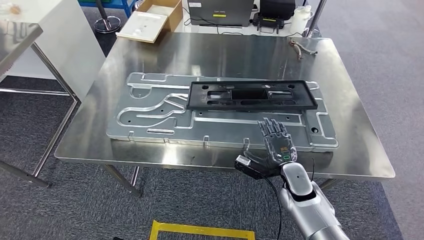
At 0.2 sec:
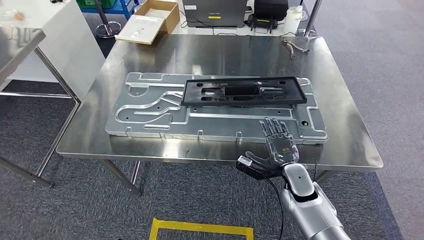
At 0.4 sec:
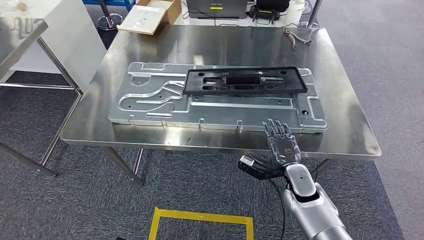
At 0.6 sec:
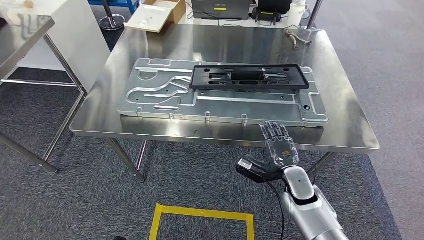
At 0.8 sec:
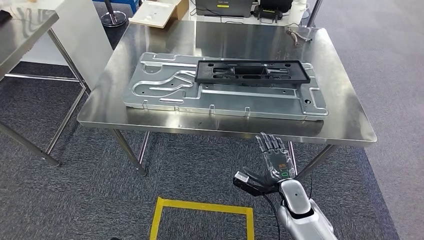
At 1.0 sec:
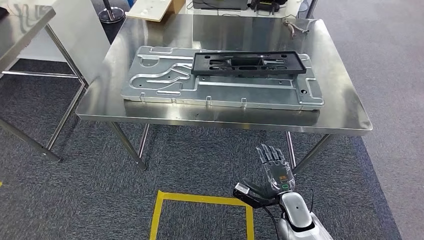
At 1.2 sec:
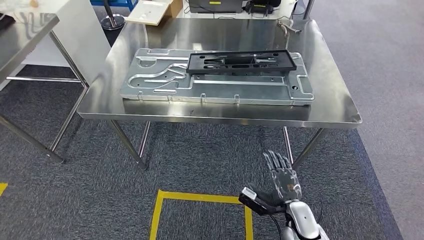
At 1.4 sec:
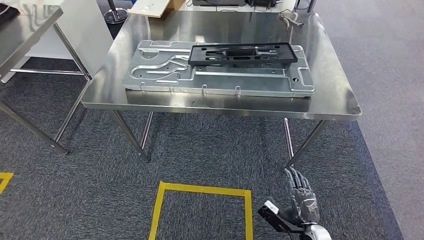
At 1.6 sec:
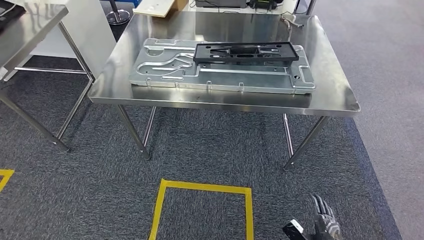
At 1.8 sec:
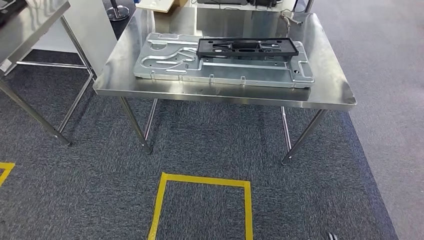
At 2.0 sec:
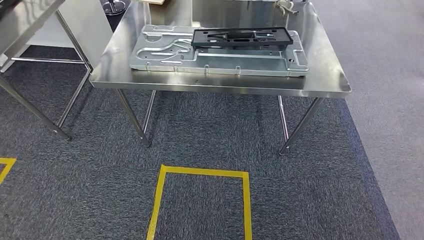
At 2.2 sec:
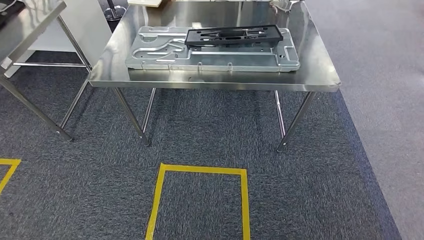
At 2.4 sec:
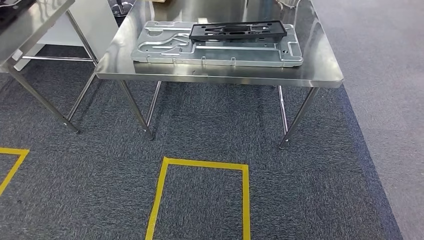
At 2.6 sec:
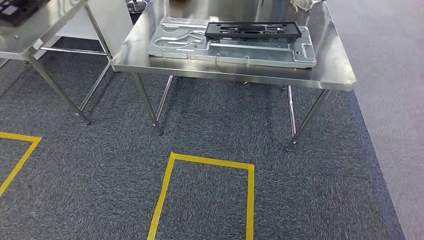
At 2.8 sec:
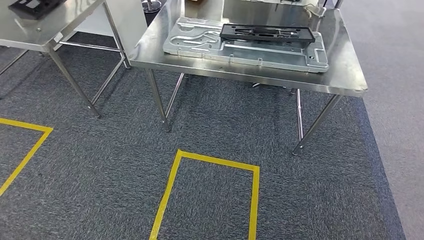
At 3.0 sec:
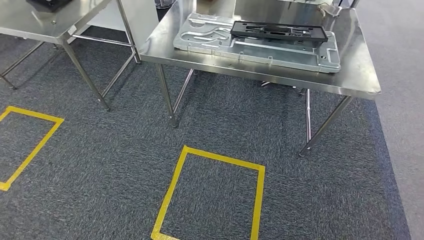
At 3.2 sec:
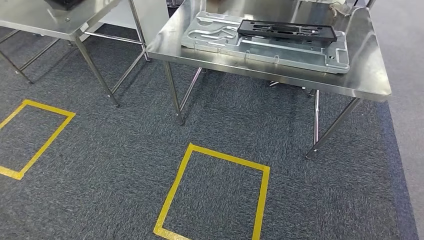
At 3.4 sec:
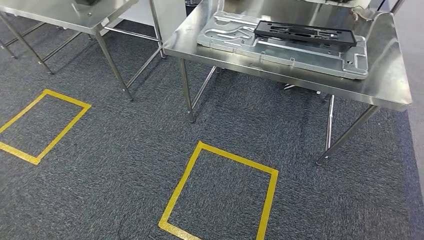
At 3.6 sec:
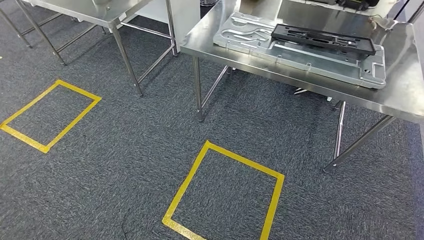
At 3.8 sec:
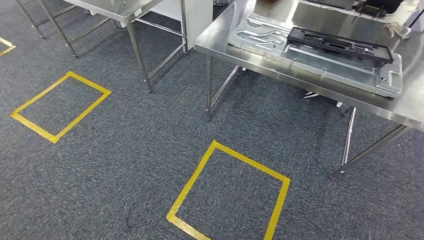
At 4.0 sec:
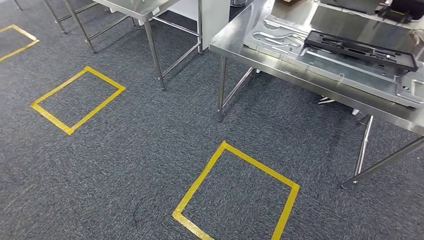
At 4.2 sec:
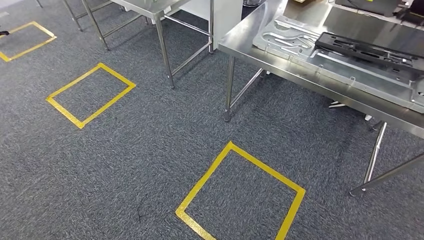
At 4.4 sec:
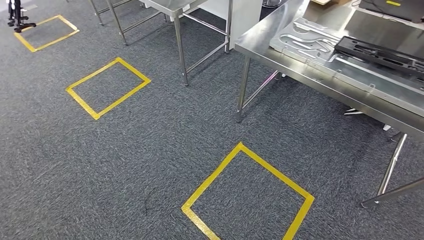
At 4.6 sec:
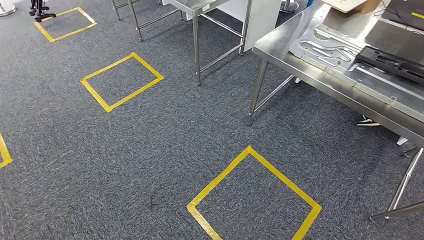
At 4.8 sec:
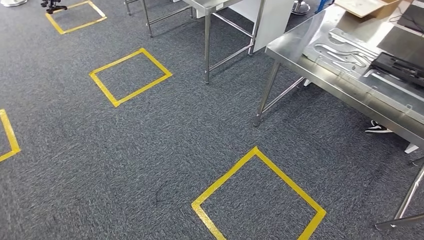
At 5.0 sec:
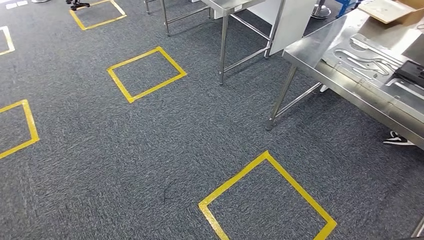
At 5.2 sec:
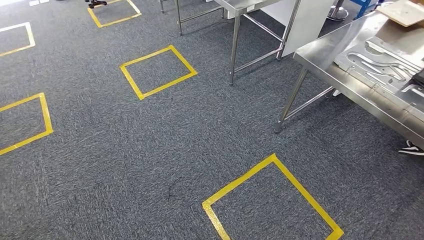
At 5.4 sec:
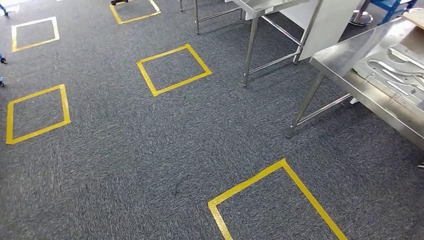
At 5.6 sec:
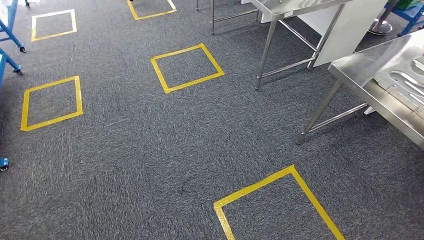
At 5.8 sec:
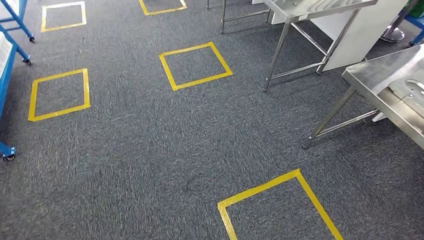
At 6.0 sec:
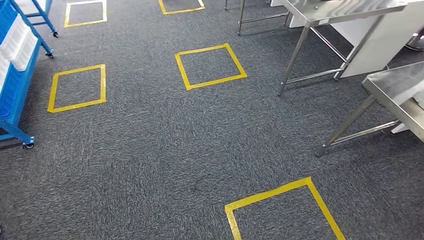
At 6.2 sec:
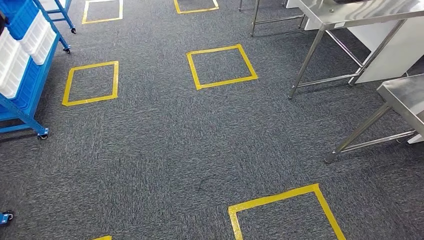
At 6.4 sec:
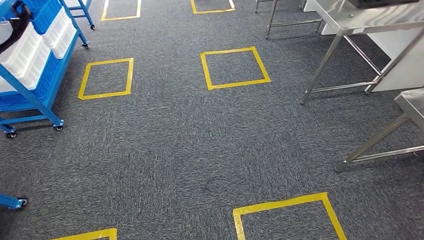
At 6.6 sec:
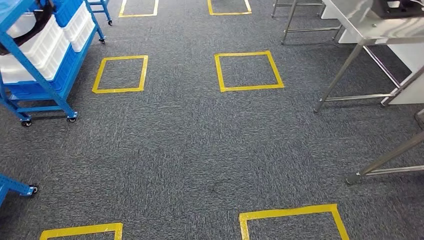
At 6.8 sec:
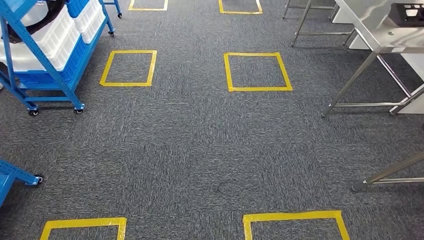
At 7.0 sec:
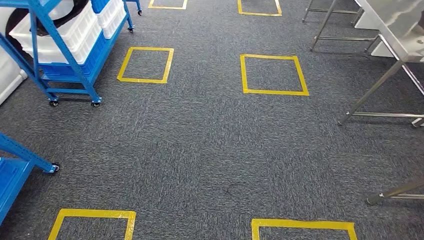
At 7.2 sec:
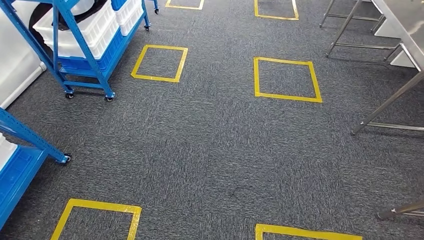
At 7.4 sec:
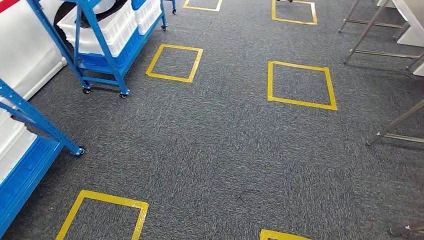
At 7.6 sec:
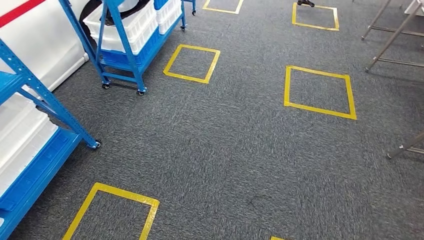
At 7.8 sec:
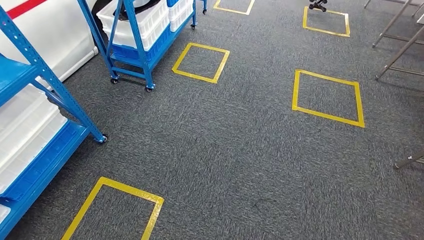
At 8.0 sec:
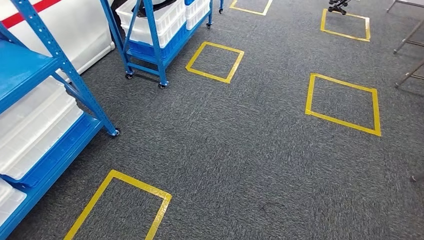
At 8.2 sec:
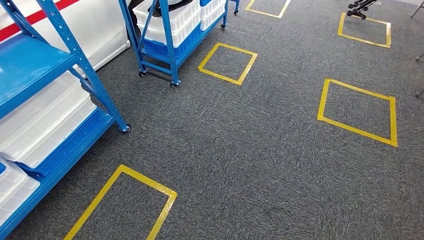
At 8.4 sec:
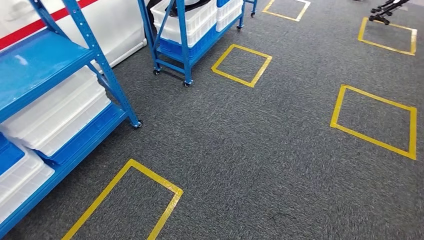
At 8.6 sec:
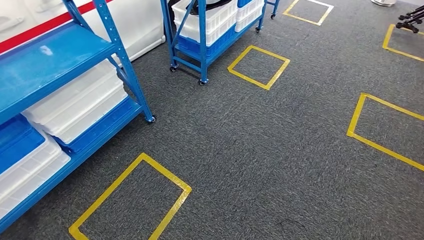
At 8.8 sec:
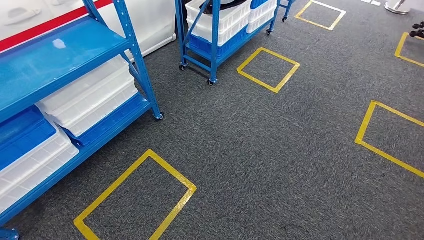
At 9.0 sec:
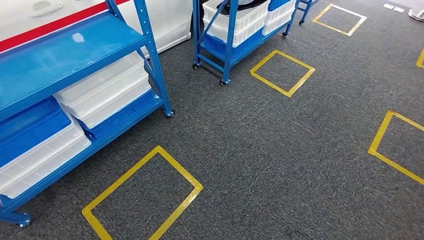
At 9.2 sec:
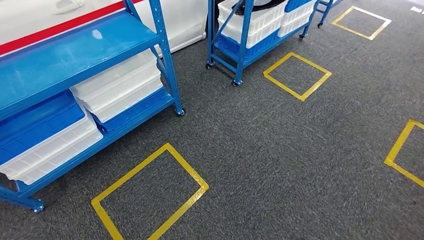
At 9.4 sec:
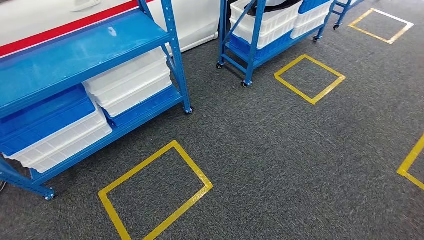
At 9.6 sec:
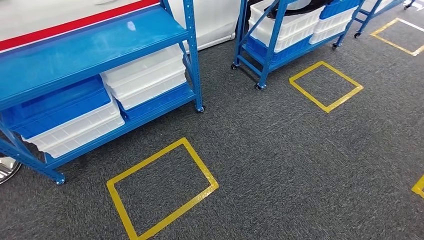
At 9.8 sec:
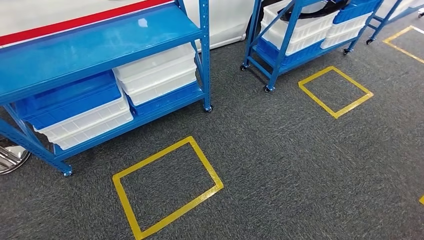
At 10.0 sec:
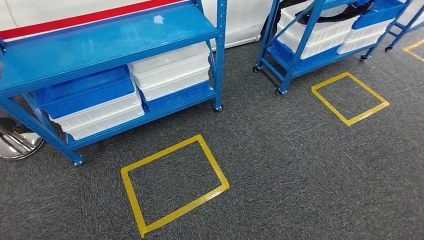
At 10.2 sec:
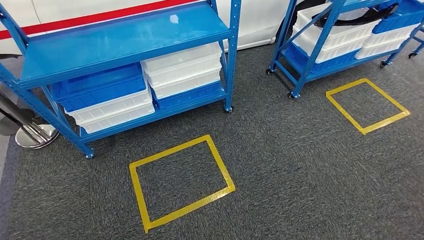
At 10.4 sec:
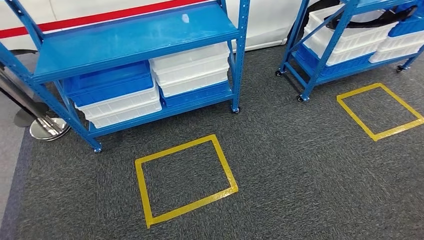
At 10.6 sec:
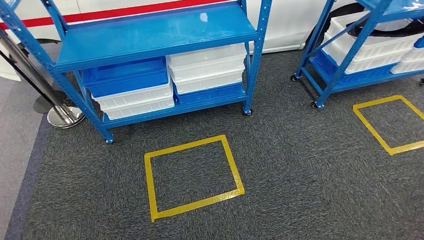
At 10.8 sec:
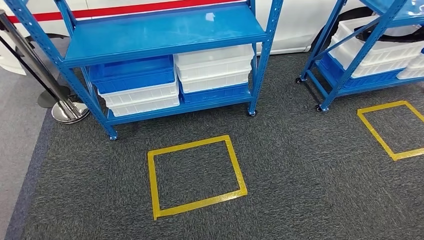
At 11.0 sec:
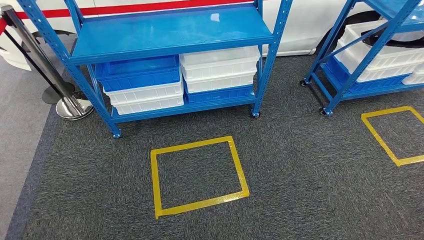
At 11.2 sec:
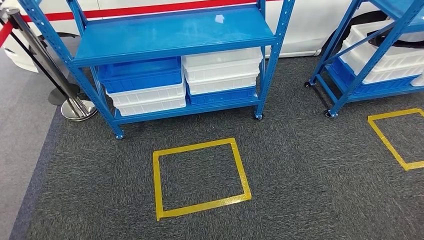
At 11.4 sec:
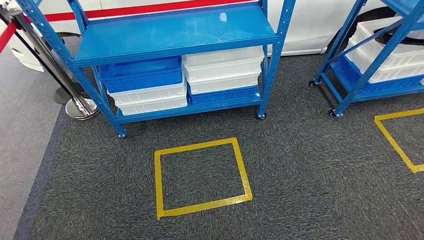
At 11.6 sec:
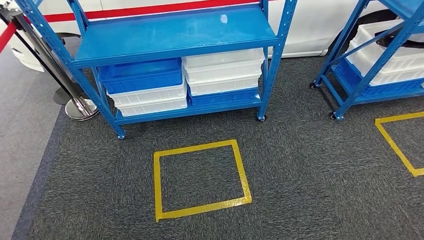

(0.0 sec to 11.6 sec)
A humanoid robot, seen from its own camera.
Step, 0.0 sec - 2.8 sec: Insert the large material into the corresponding slot on the workbench.
Step, 5.4 sec - 11.6 sec: Move to the initial position of the shelf.
